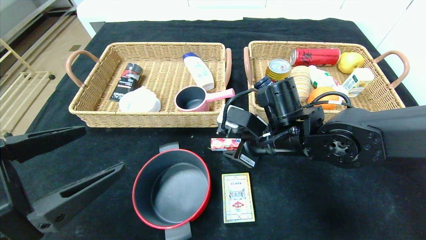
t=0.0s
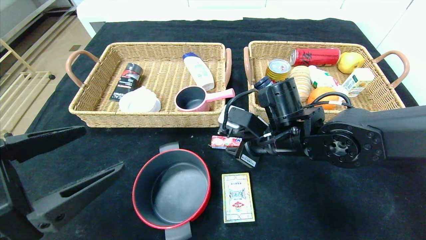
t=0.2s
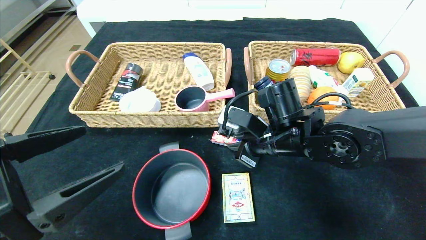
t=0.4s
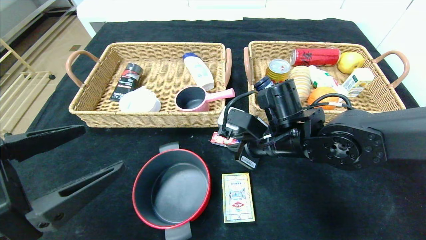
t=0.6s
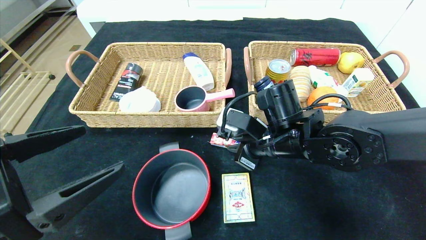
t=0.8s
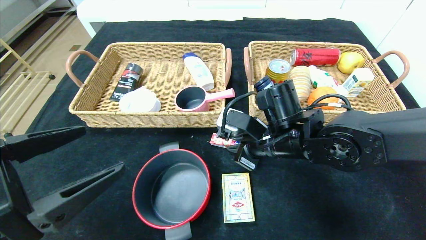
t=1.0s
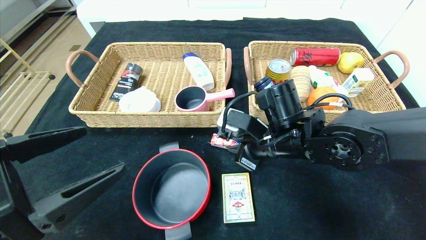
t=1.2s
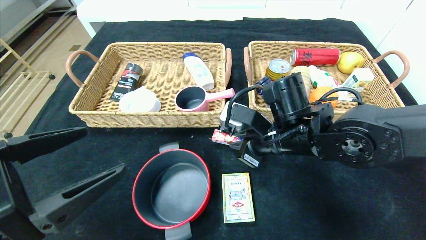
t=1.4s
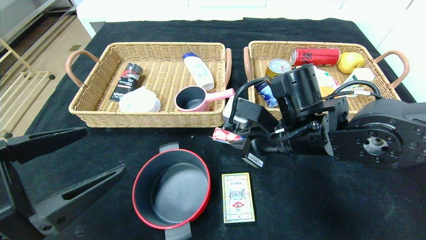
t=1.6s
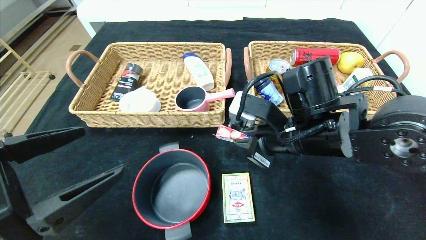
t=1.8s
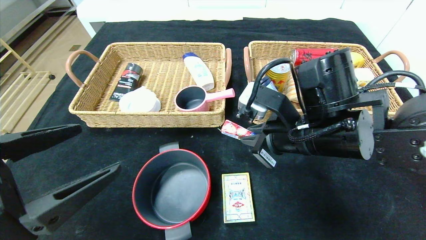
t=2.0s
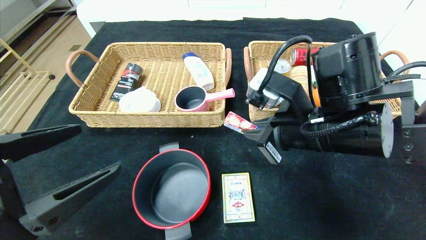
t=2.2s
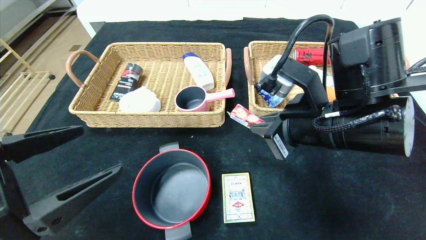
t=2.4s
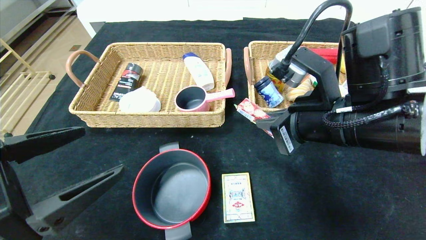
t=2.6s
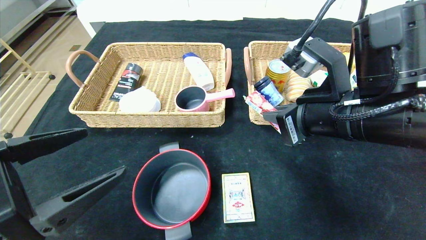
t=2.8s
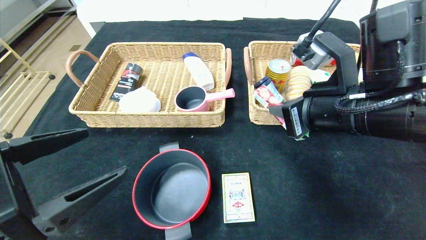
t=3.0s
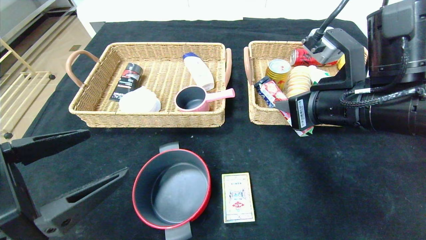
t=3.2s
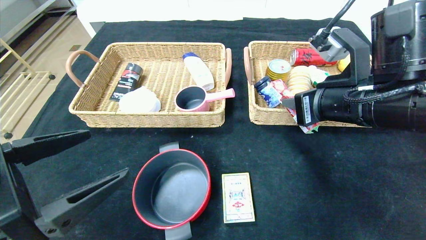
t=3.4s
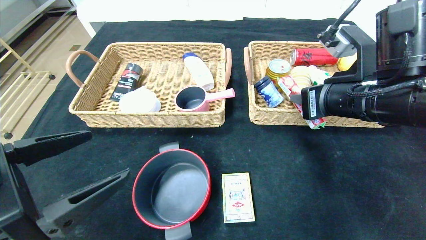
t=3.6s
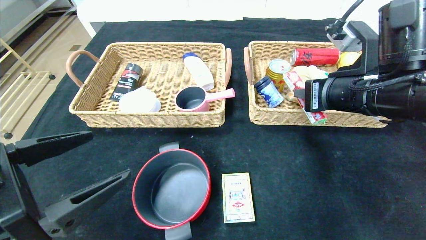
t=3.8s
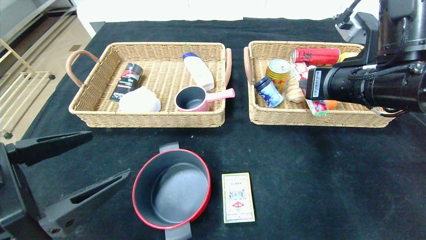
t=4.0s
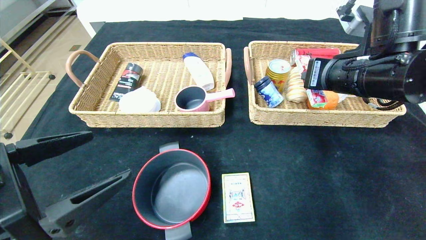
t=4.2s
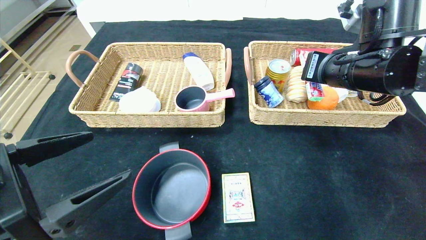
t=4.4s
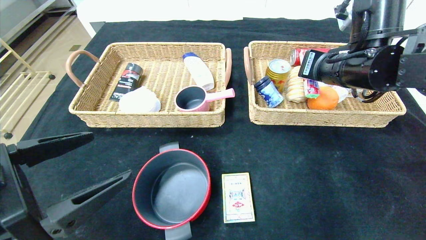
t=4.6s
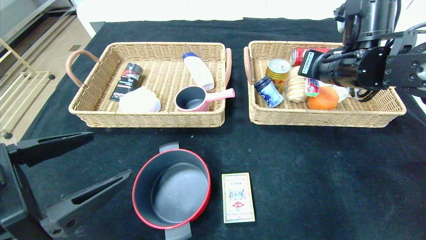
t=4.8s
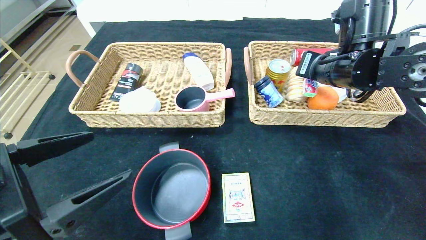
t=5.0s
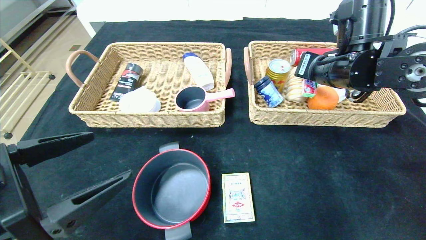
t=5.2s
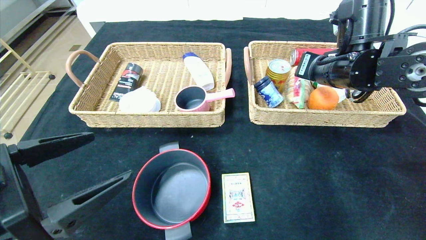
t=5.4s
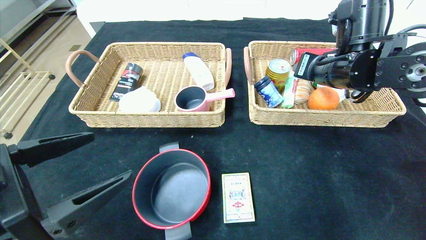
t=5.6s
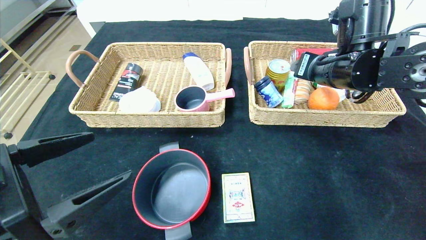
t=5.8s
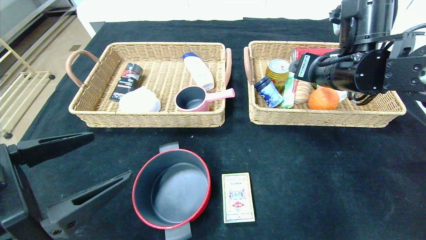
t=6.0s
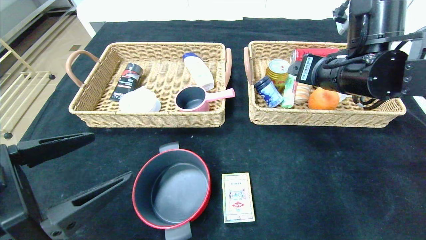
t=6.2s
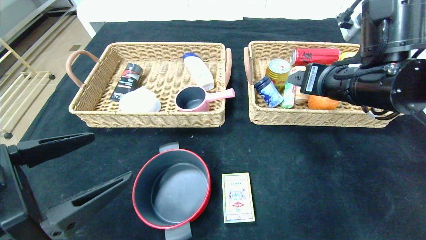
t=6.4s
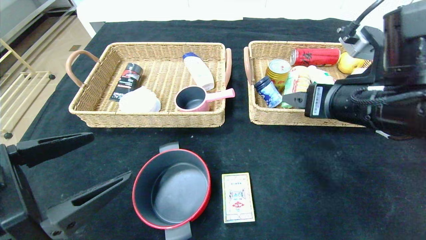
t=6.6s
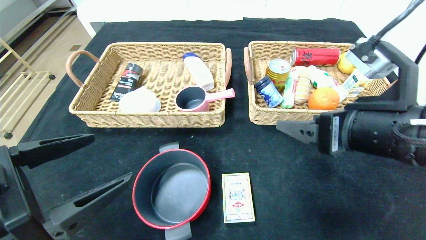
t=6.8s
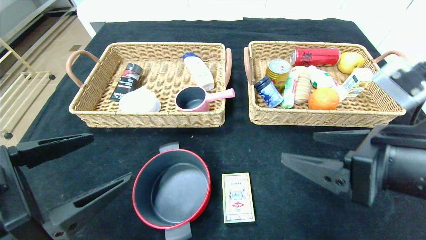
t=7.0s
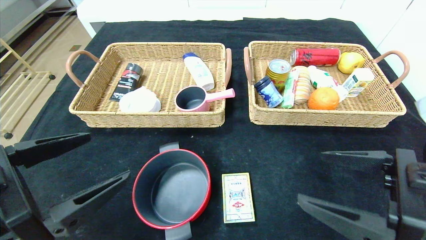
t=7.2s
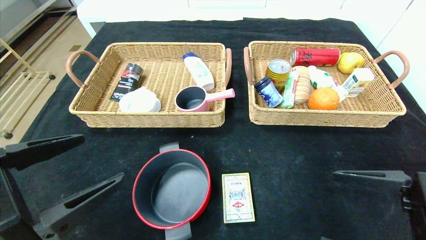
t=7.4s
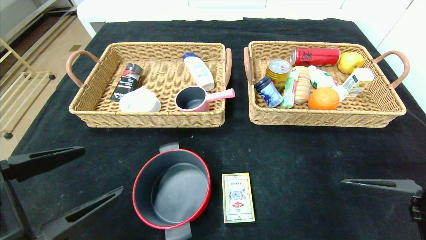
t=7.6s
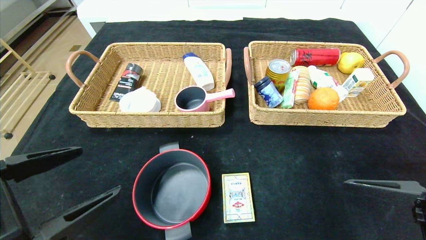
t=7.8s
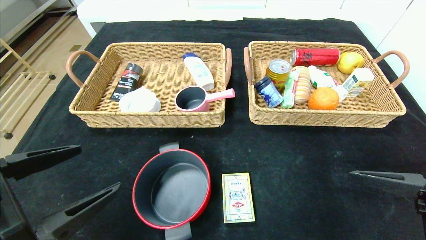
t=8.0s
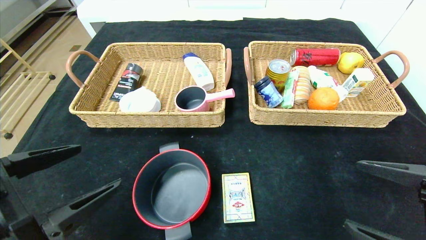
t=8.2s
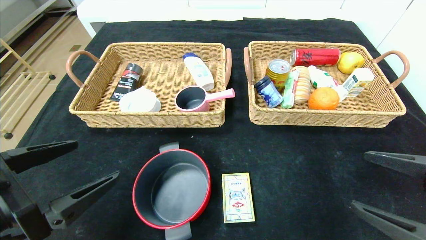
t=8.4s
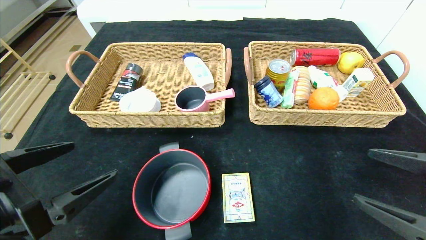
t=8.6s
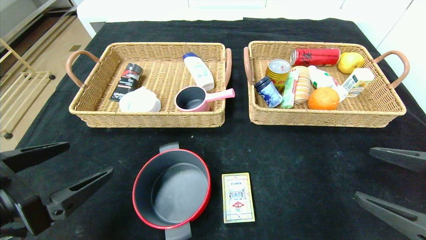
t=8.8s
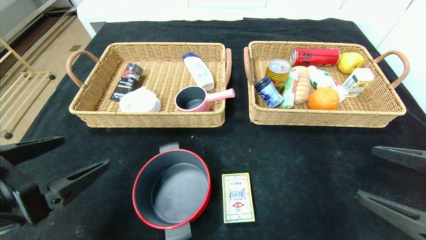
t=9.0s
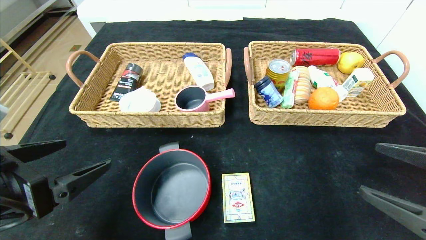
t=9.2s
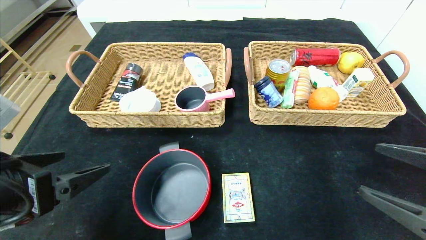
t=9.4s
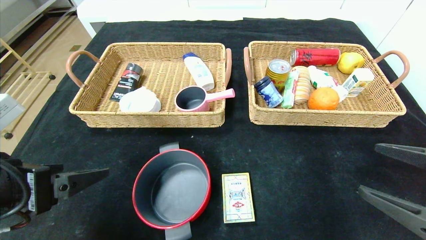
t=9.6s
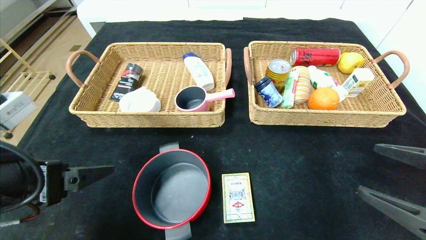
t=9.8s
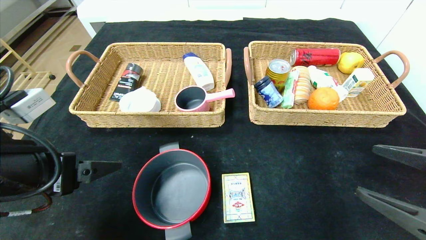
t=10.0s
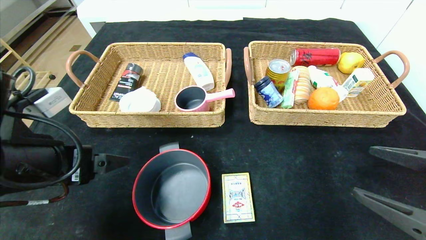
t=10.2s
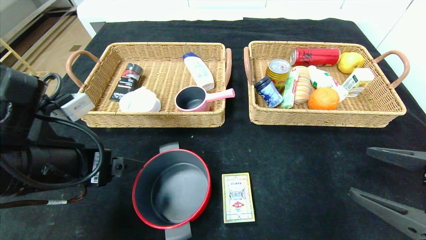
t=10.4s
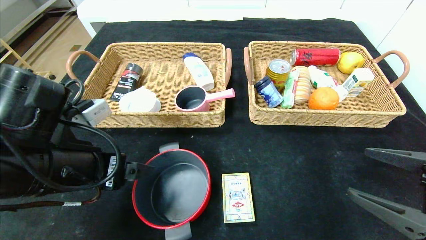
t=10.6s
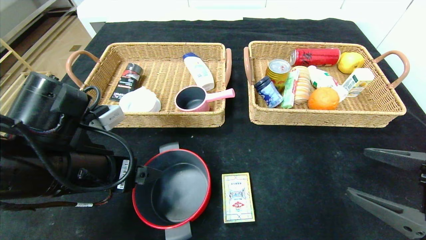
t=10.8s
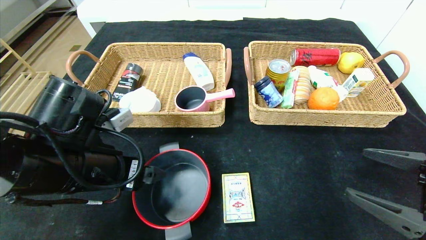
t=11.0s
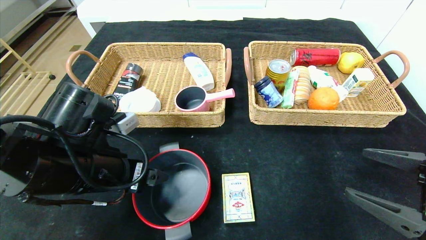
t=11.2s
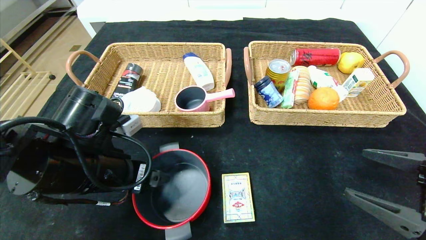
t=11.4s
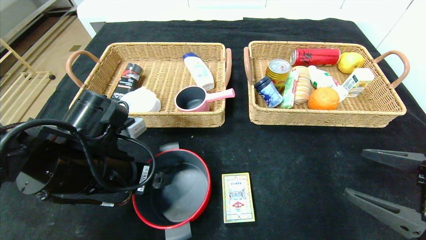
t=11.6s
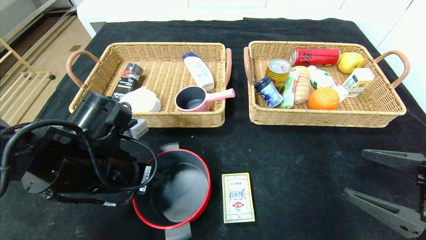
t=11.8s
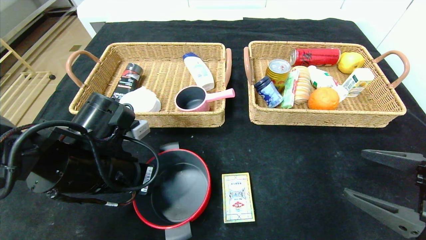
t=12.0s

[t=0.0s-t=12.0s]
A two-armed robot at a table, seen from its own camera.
Step, t=0.0s to t=5.8s: Grasp the fruit fudge and put it in the right basket.
t=0.0s to t=1.6s: The right gripper closes.
t=1.6s to t=3.0s: The right gripper travels upward and to the right by about 10 cm.
t=3.0s to t=4.4s: The right gripper moves forward, approximately 5 cm.
t=4.4s to t=6.0s: The right gripper opens up.
t=6.0s to t=7.6s: The right gripper goes some 25 cm backward.
t=7.6s to t=9.0s: The right gripper shifts by some 5 cm.
t=9.0s to t=10.4s: The left gripper goes some 5 cm forward.
t=10.4s to t=12.0s: The left gripper moves about 5 cm, and closes up.

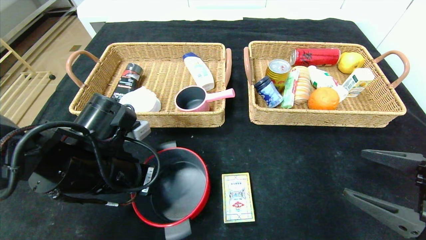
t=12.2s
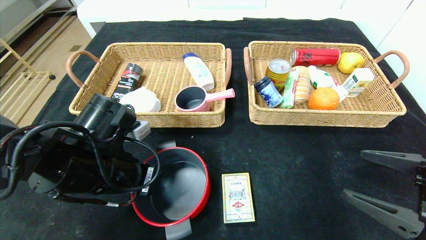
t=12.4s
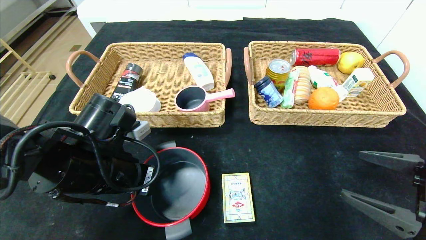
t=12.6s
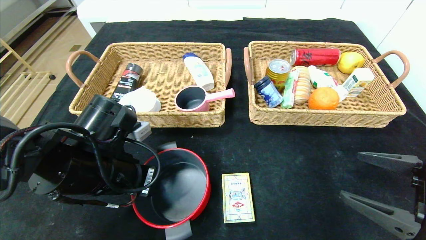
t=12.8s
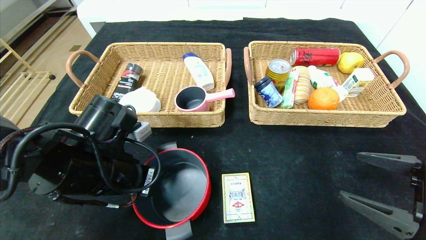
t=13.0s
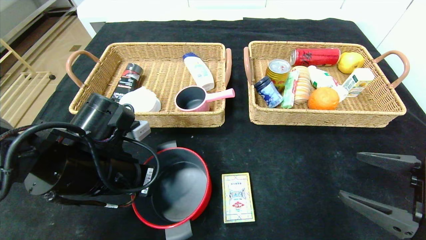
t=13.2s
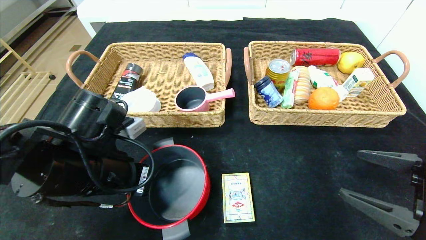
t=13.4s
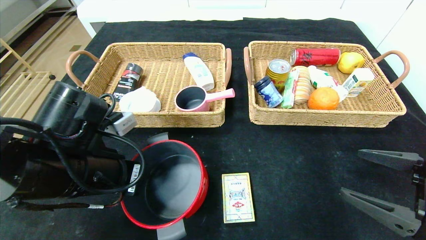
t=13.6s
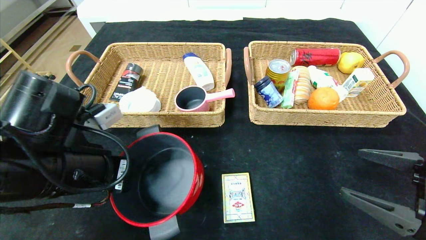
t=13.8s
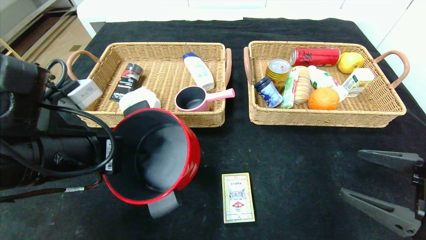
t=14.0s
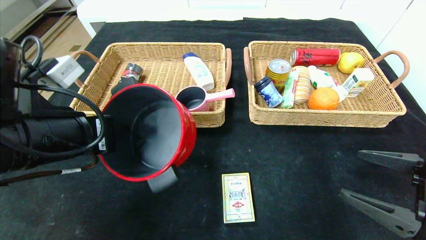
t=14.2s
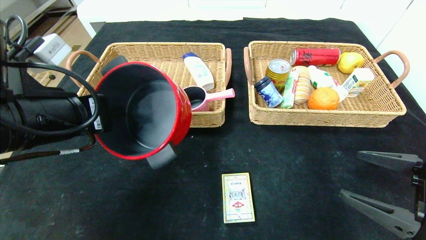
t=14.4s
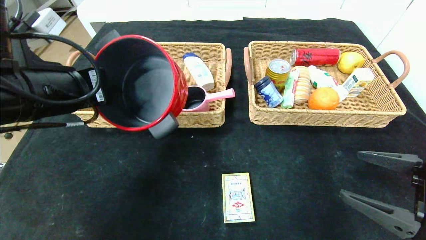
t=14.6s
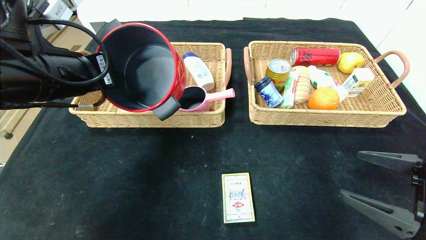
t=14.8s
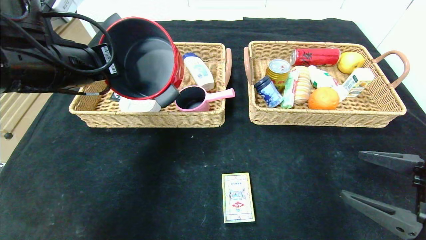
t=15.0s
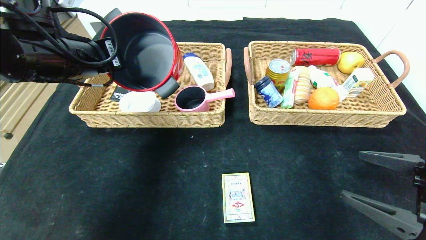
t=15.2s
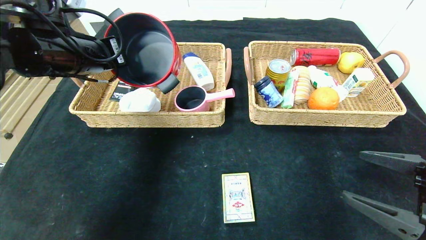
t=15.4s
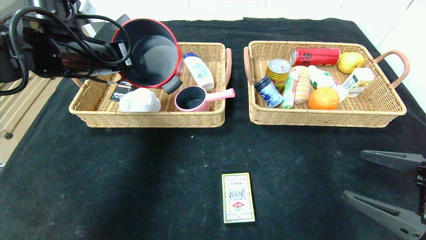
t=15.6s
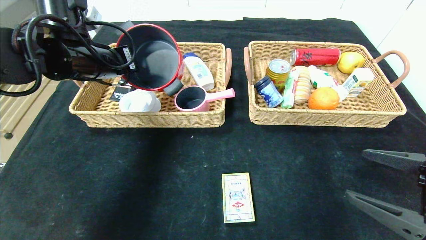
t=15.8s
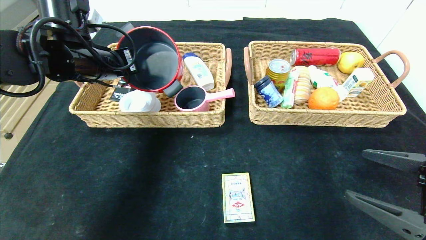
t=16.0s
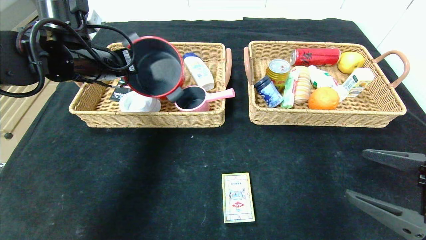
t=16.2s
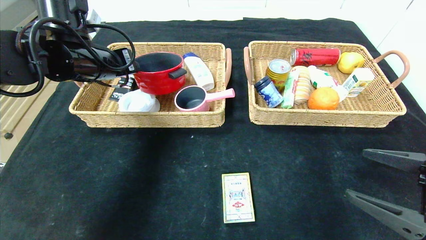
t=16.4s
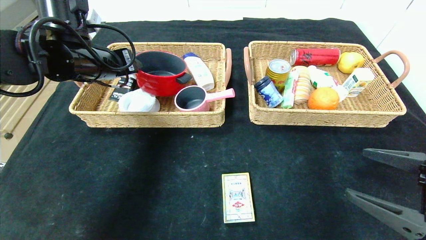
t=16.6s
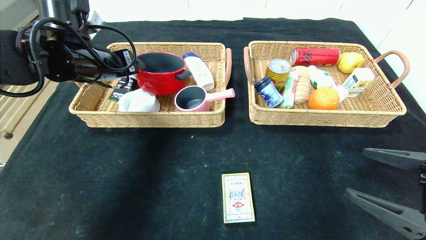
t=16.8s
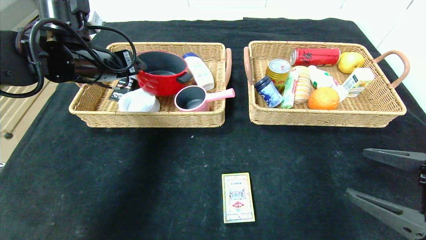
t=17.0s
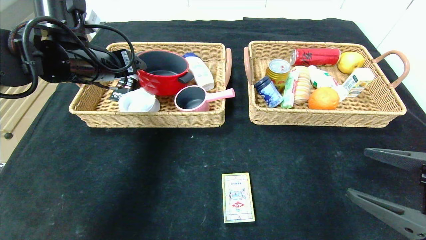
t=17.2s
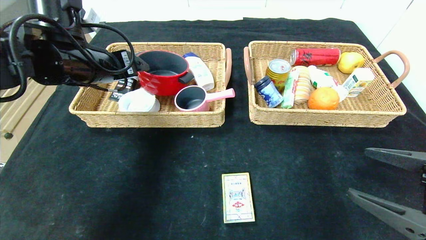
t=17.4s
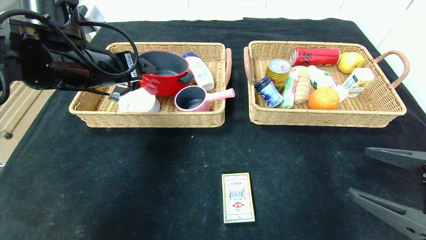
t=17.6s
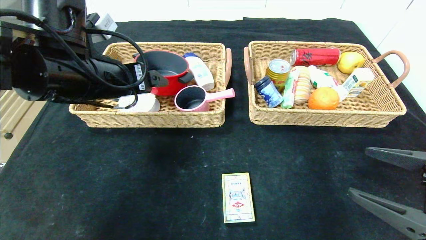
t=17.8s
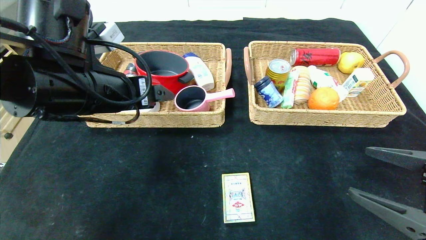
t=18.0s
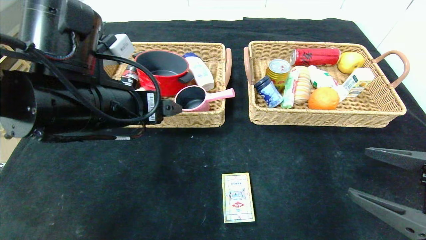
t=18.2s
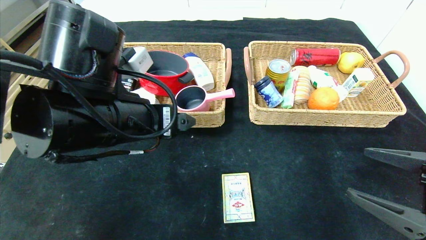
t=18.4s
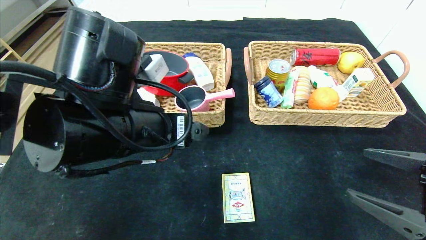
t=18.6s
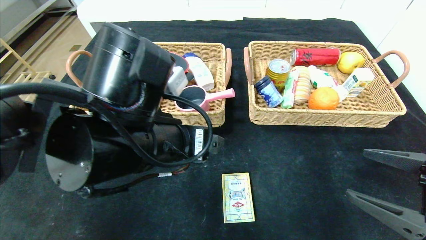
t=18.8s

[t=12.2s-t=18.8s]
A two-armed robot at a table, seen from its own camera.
Step, t=12.2s to t=16.4s: Grasp the red pot and put it in the left basket.
t=12.2s to t=13.8s: The left gripper shifts by roughly 5 cm.
t=13.8s to t=15.4s: The left gripper goes about 15 cm forward and upward.
t=15.4s to t=17.2s: The left gripper opens up.
t=17.2s to t=18.8s: The left gripper shifts roughly 20 cm backward, to the right and downward.
